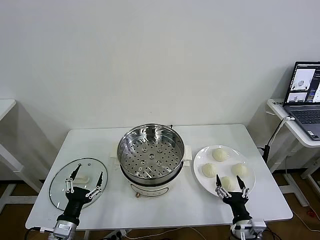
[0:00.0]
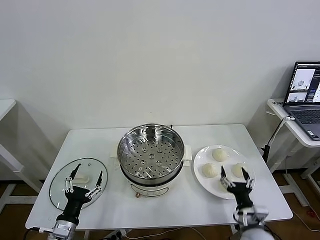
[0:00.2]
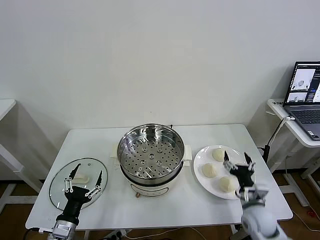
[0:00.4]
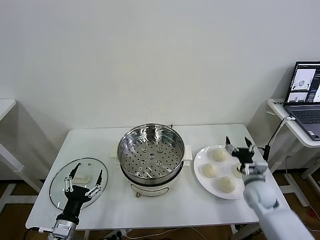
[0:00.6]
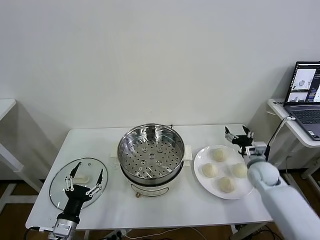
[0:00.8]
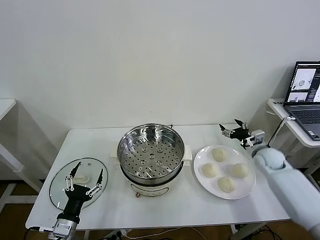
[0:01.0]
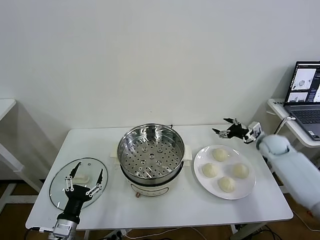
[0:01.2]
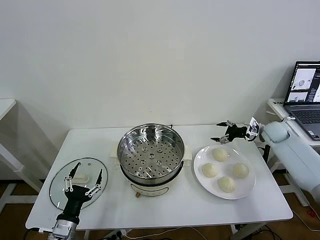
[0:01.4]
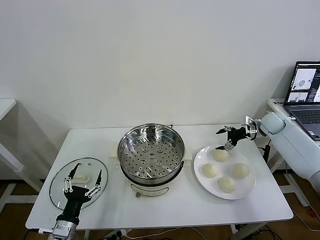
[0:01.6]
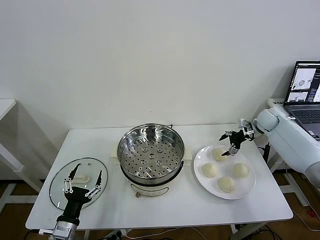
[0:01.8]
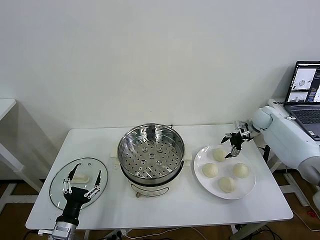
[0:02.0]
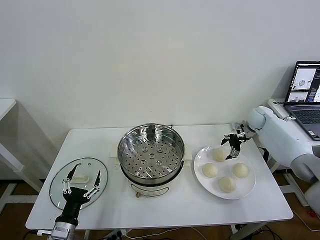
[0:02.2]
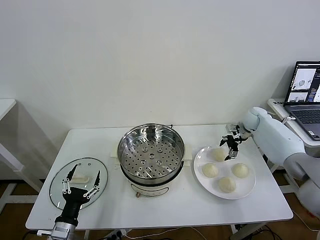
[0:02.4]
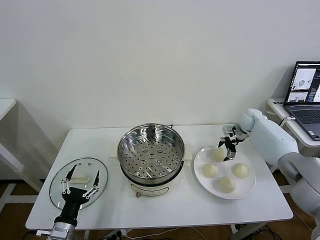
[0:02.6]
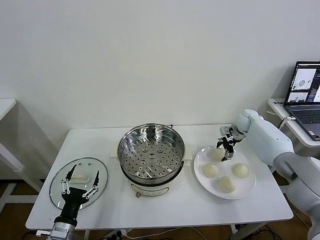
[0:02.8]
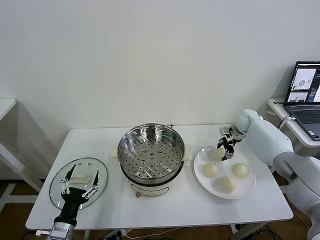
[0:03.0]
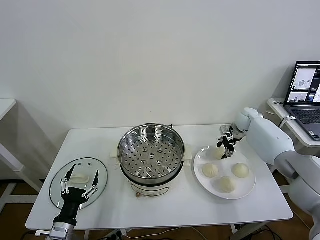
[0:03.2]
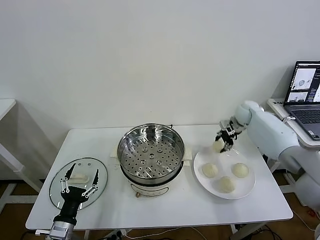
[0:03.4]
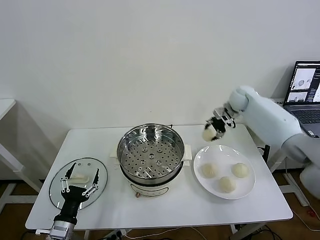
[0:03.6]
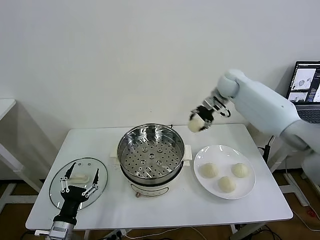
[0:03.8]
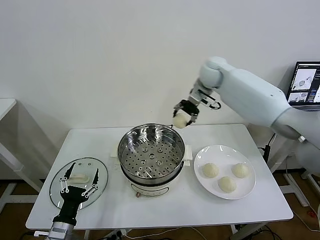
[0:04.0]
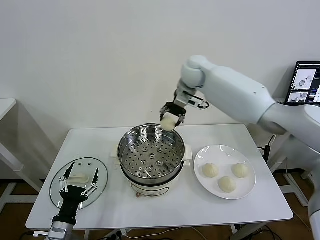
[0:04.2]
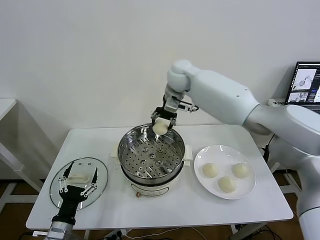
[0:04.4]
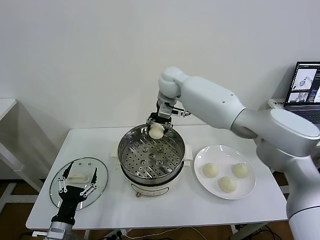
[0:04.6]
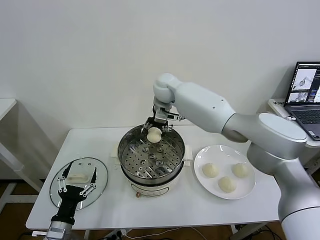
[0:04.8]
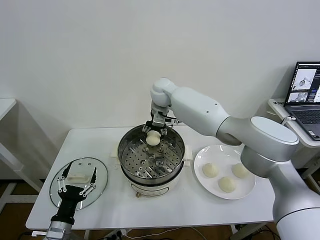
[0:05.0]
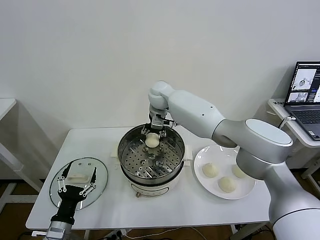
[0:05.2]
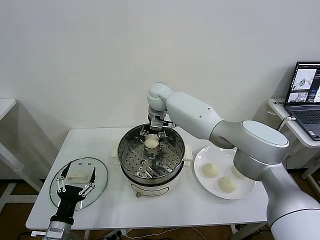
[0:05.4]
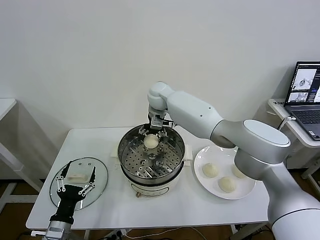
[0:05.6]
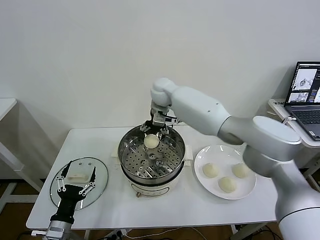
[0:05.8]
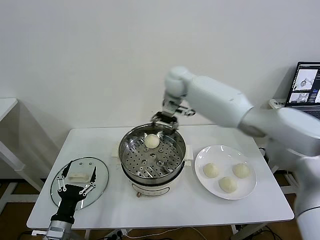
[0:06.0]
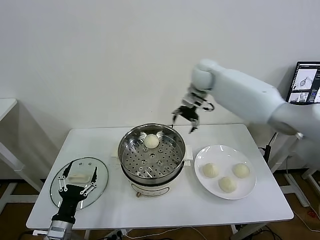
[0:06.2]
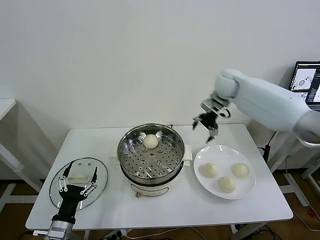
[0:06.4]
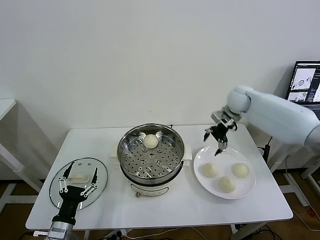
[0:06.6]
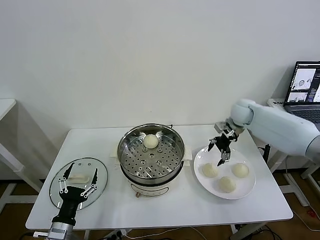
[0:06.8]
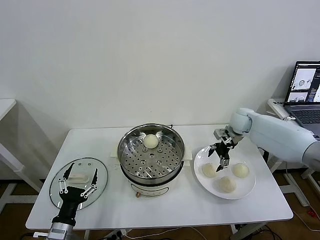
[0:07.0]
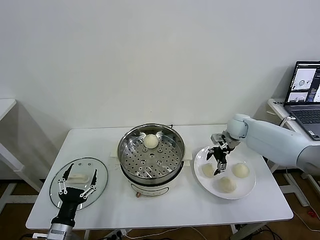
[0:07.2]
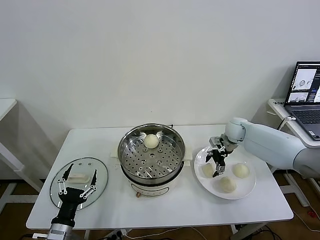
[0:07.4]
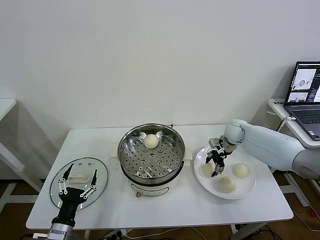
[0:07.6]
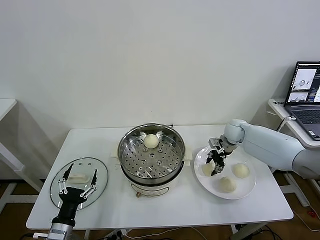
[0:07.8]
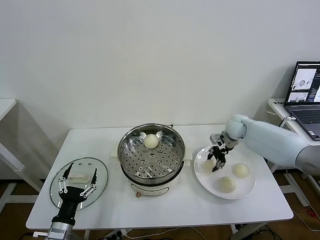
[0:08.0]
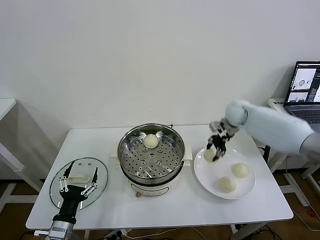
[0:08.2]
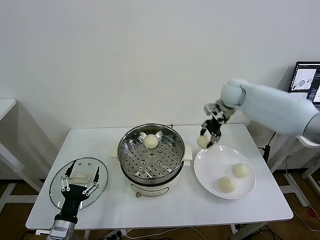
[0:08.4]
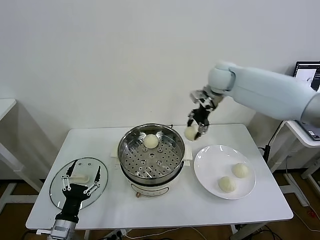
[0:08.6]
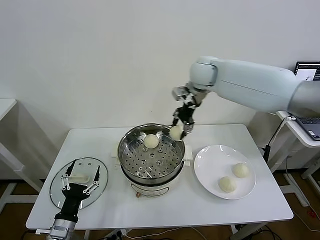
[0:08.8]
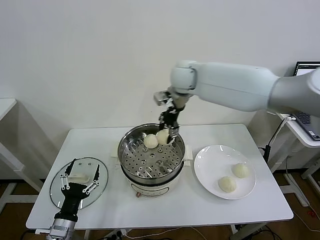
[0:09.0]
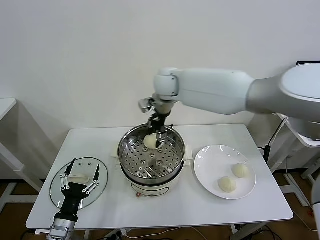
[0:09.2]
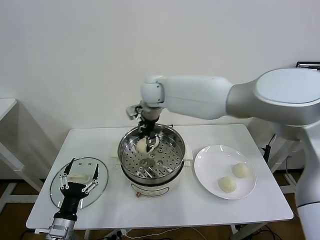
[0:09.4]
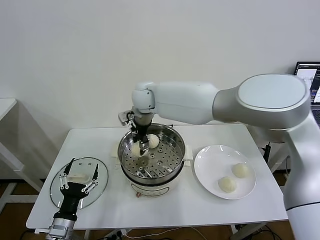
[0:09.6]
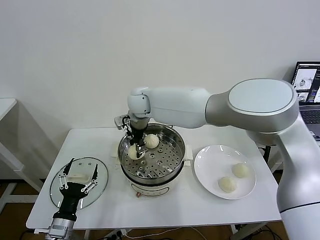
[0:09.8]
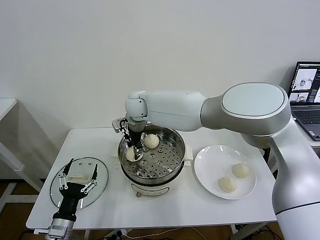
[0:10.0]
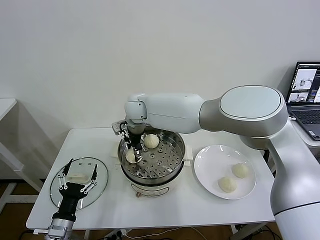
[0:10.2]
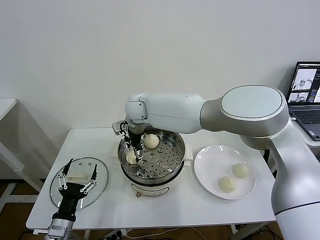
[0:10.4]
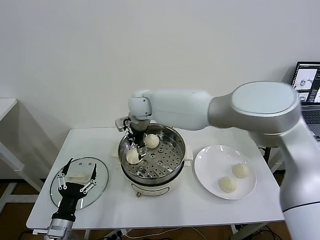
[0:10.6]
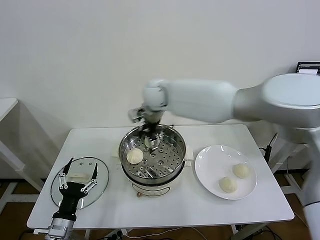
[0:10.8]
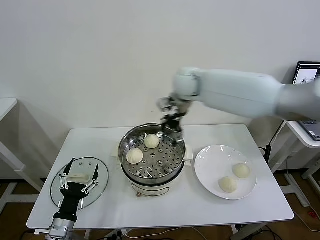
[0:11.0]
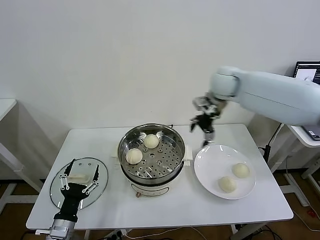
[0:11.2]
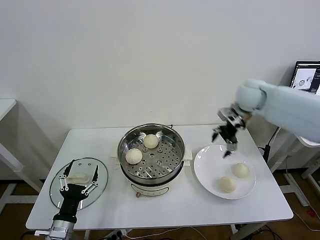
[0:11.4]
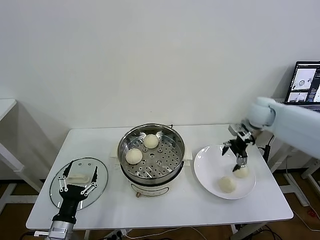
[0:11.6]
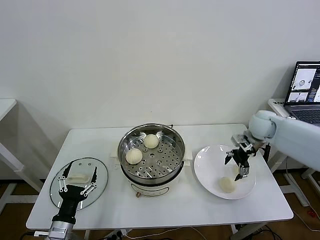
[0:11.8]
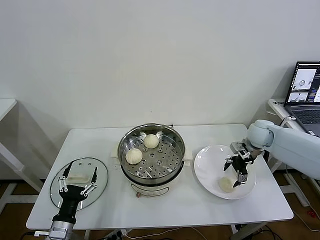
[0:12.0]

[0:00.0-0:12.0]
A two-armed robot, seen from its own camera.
Task of the whole recording: take steamed baozi put them in steamer then cover it.
Step, 0.0 to 3.0 s: Grasp the baozi in the plate with right gripper.
Step, 3.2 to 5.6 s: Place the baozi on the steamer with right gripper.
Step, 5.8 to 7.6 s: Grasp the baozi in the plate with right gripper.
Step, 7.8 to 10.4 s: Place the baozi on the steamer with right gripper.
1.6 to 3.0 s: The right gripper travels to the left by about 5 cm, and closes up.
3.0 to 4.4 s: The right gripper moves to the left and upward, roughly 40 cm.
4.4 to 6.0 s: The right gripper opens up.
6.0 to 7.6 s: The right gripper shifts some 30 cm downward and to the right, and closes.
7.6 to 9.0 s: The right gripper heads to the left and upward, covering some 35 cm.
9.0 to 10.4 s: The right gripper heads to the left and downward, covering roughly 15 cm, and opens up.
10.4 to 12.0 s: The right gripper heads to the right, covering some 40 cm.

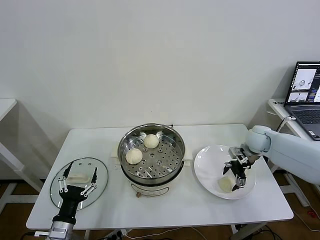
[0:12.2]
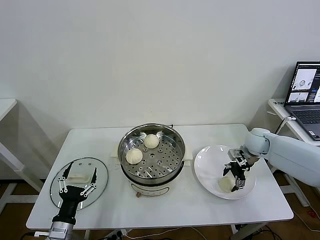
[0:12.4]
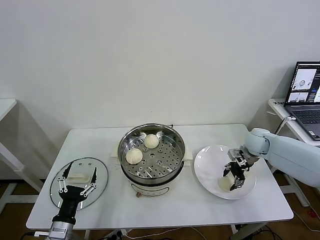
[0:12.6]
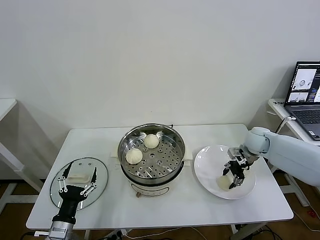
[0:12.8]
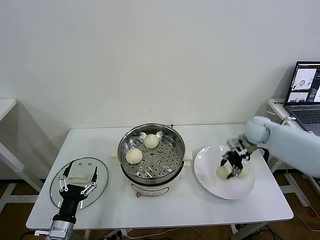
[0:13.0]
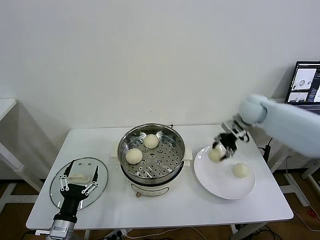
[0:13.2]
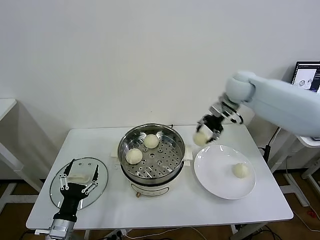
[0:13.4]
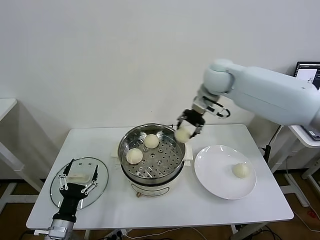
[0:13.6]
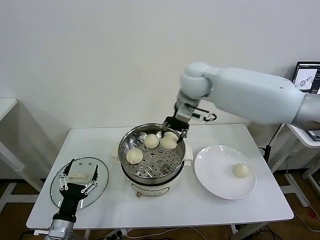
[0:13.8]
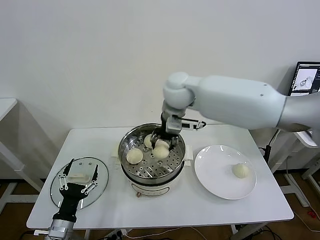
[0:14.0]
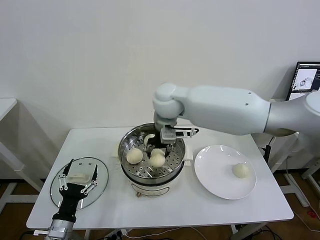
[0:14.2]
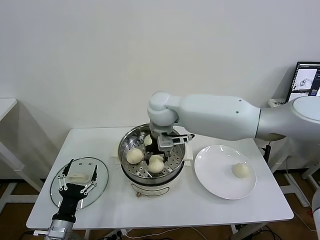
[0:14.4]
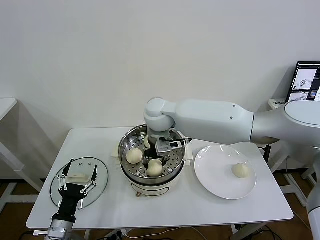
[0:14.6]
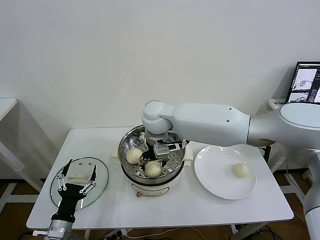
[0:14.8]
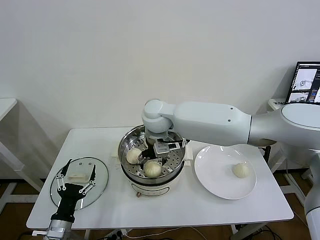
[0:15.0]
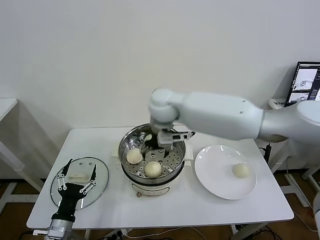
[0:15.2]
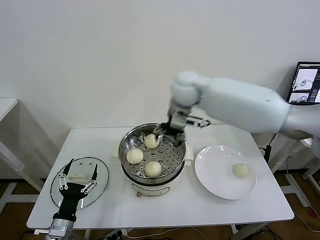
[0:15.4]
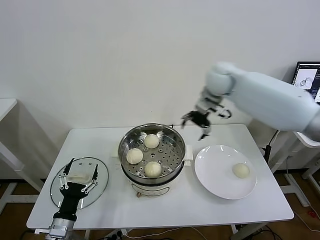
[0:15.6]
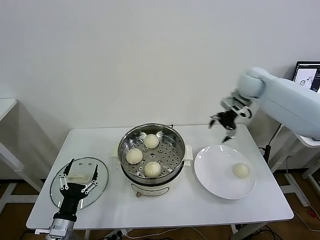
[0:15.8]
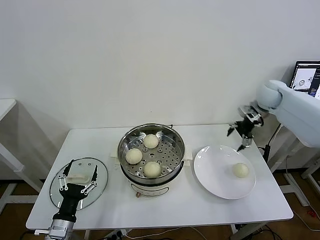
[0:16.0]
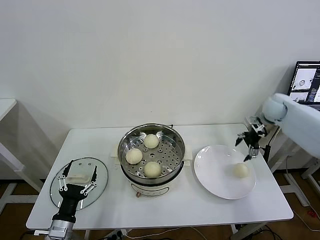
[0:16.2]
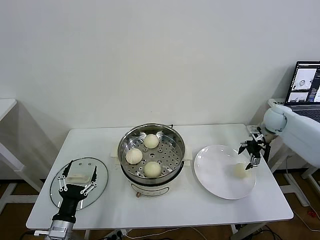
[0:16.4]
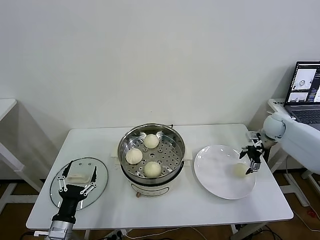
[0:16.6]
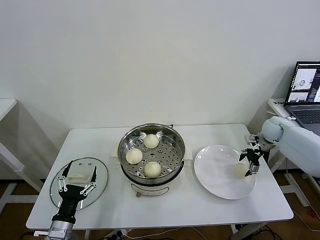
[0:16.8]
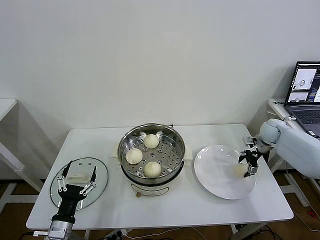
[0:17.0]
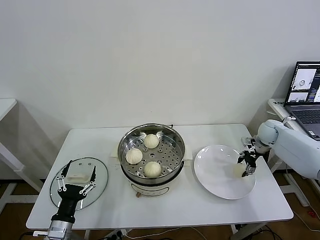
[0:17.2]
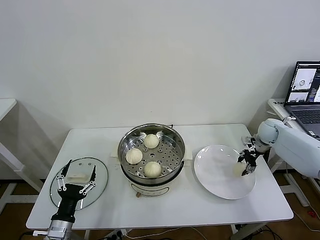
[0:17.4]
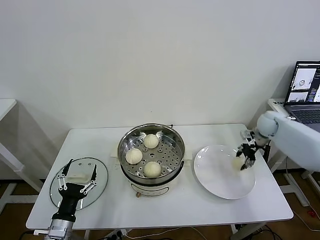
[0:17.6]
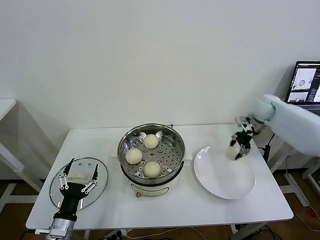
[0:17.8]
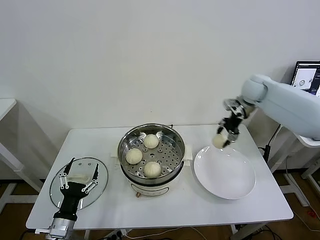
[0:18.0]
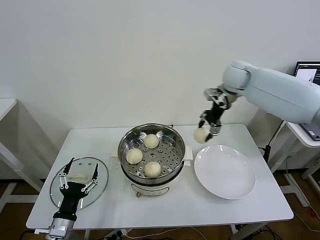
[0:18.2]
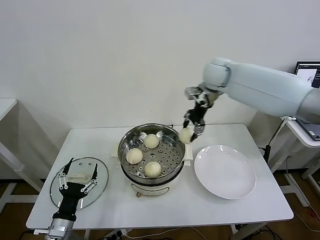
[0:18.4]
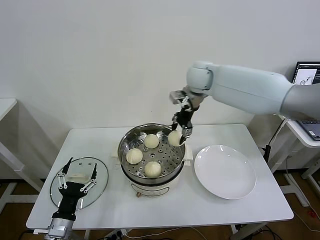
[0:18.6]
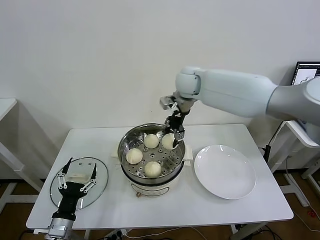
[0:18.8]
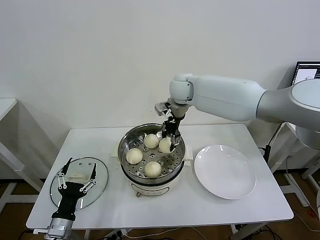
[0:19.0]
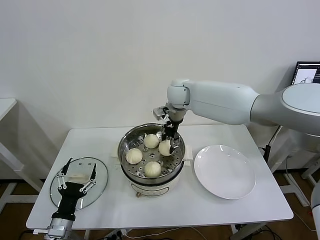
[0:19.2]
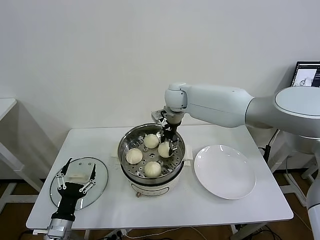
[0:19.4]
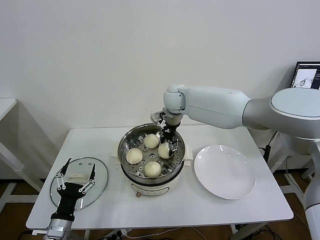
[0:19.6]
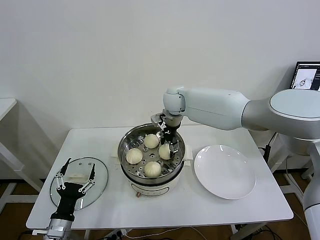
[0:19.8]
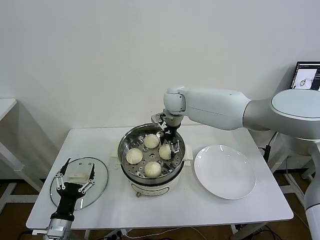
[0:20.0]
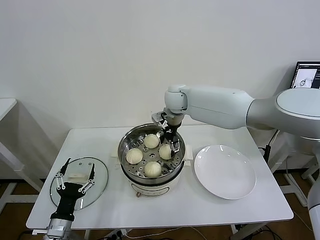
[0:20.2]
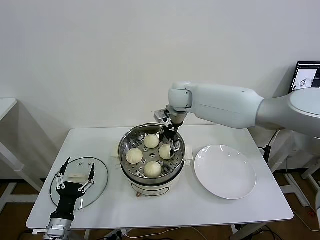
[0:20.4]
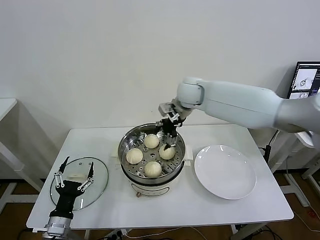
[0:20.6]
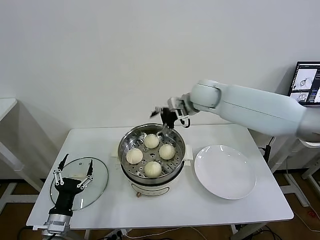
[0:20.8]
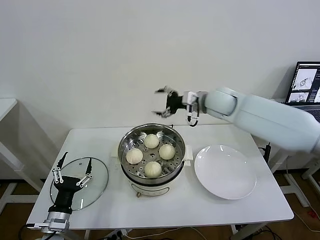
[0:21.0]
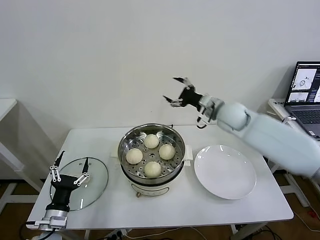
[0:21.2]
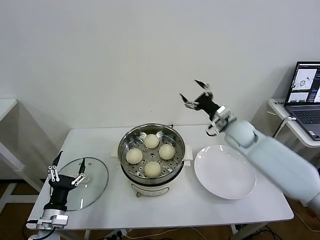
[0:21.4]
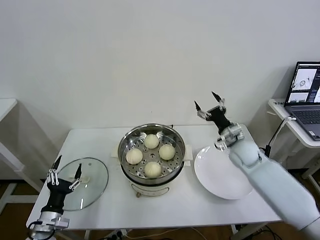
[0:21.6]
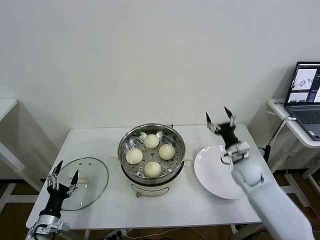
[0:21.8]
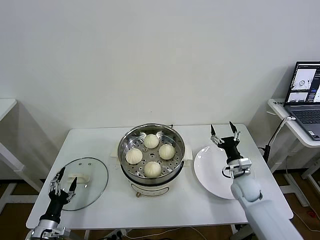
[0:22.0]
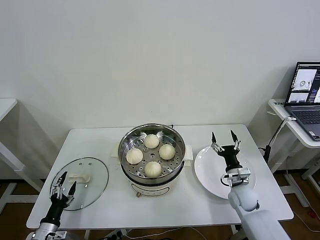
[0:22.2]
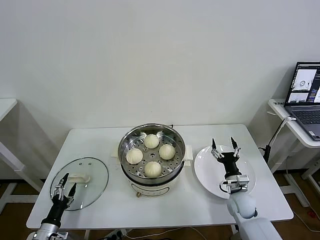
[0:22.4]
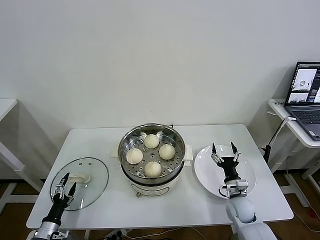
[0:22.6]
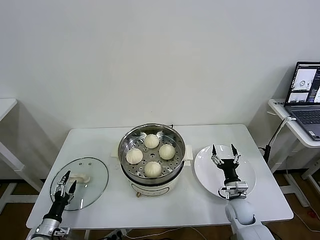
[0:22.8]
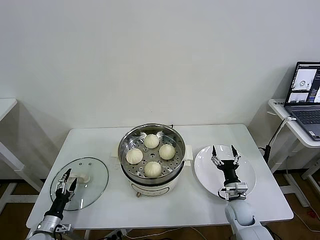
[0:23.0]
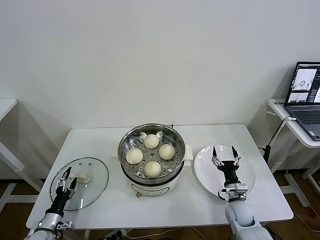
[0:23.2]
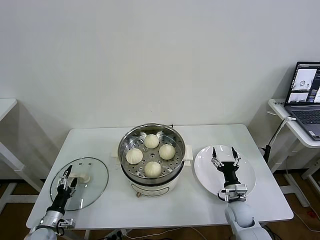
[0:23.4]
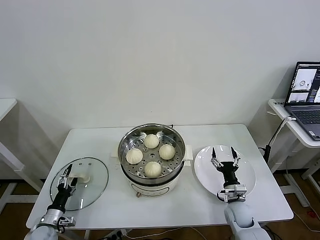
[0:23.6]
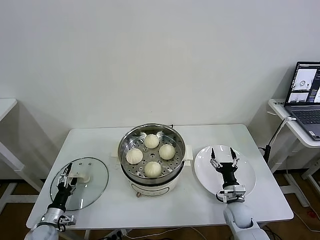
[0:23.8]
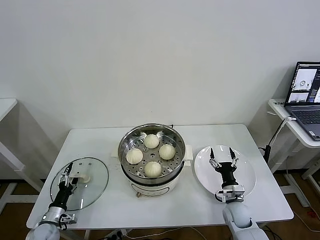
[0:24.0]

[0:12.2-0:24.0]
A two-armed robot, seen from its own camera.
Task of the whole recording: take steamed baozi put them in steamer then cover it.
Step, 13.0 to 14.8 s: Place the baozi on the steamer with right gripper.
Step, 15.0 to 17.2 s: Grasp the baozi in the plate with right gripper.
Step, 17.4 to 20.0 s: Place the baozi on the steamer with right gripper.
12.2 to 13.6 s: The right gripper travels upward and to the left by some 30 cm, and closes up.
13.6 to 15.2 s: The right gripper moves to the left and backward, roughly 15 cm, and opens its fingers.
15.2 to 16.6 s: The right gripper is displaced to the right by roughly 40 cm.
16.6 to 18.2 s: The right gripper heads to the left and upward, covering some 30 cm, and closes.
18.2 to 19.6 s: The right gripper shifts about 20 cm to the left and downward.
19.6 to 21.0 s: The right gripper travels to the right and backward by roughly 15 cm, and opens up.
21.0 to 22.6 s: The left gripper goes approximately 15 cm downward and to the left; the right gripper is displaced downward and backward by approximately 40 cm.
22.6 to 24.0 s: The left gripper heads forward, covering about 5 cm.
